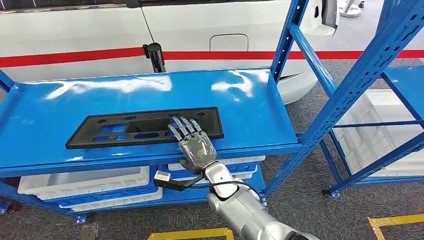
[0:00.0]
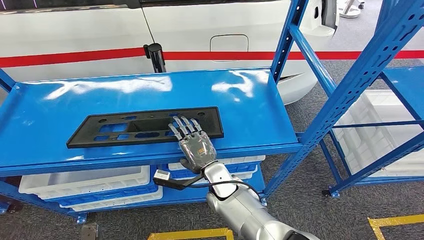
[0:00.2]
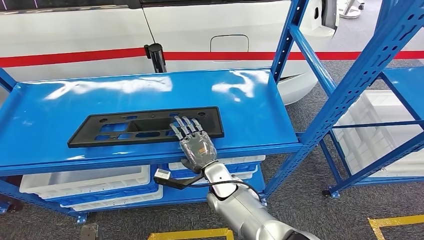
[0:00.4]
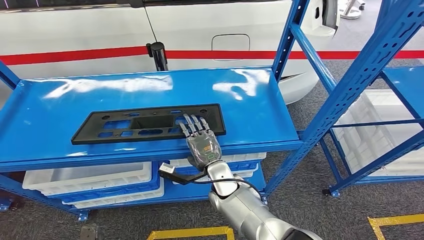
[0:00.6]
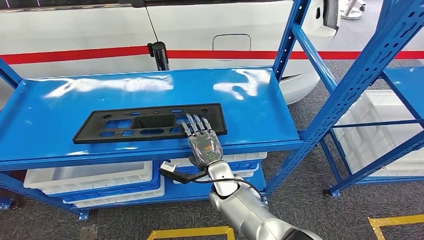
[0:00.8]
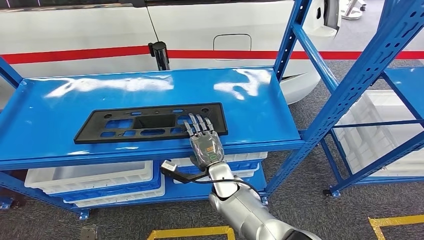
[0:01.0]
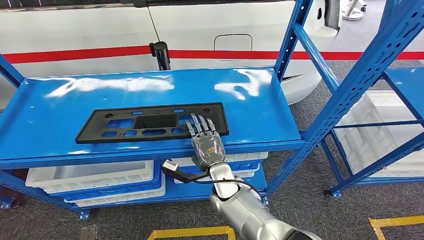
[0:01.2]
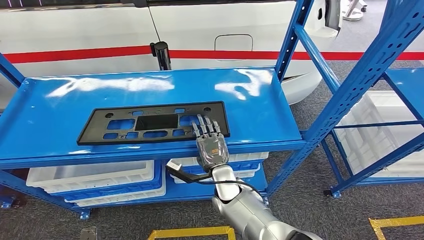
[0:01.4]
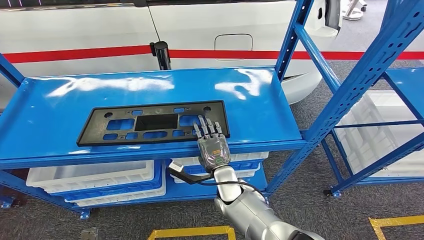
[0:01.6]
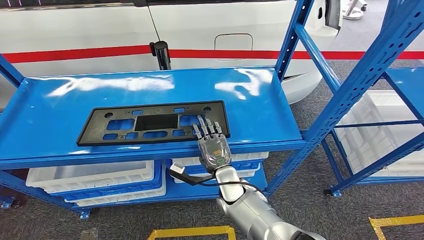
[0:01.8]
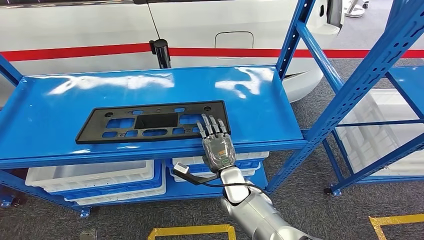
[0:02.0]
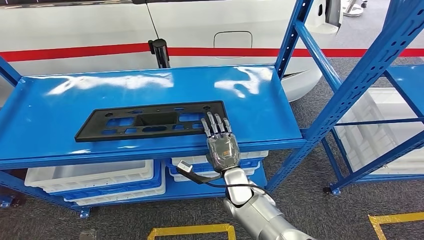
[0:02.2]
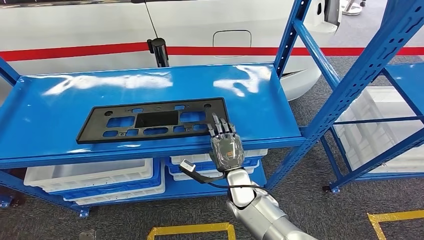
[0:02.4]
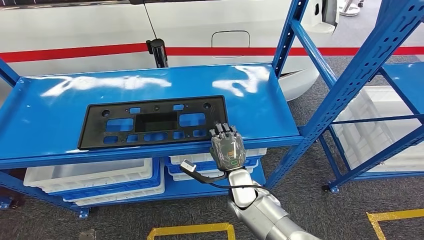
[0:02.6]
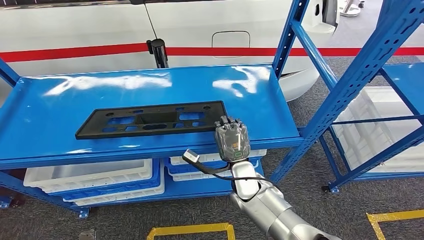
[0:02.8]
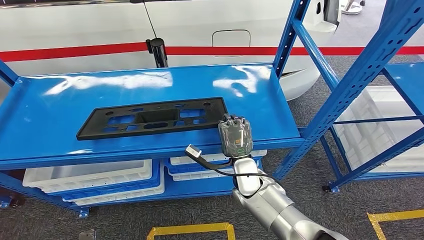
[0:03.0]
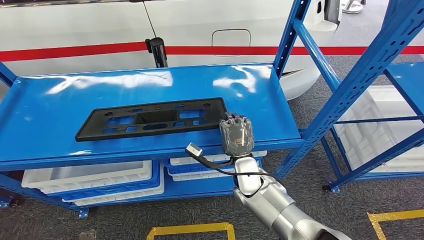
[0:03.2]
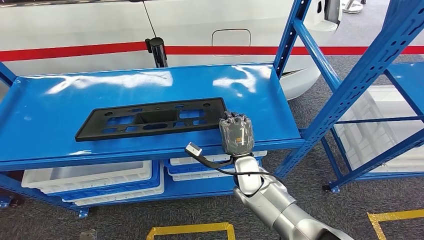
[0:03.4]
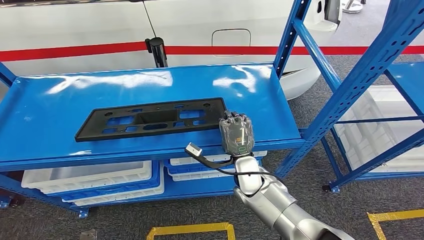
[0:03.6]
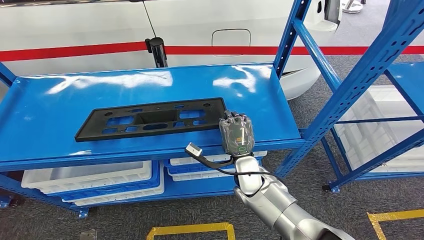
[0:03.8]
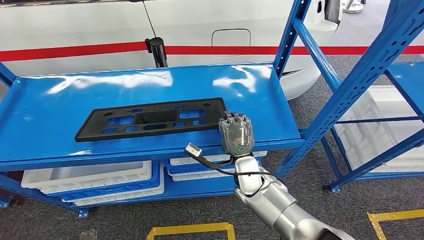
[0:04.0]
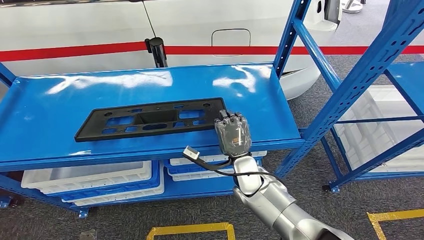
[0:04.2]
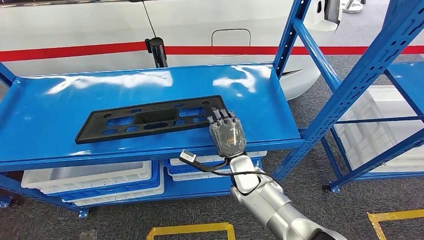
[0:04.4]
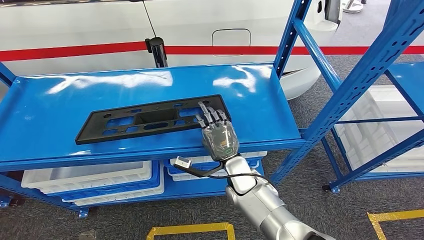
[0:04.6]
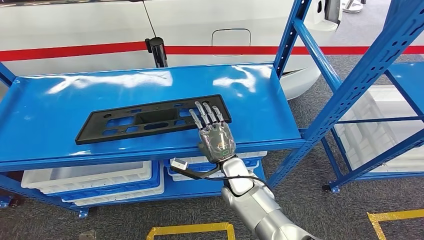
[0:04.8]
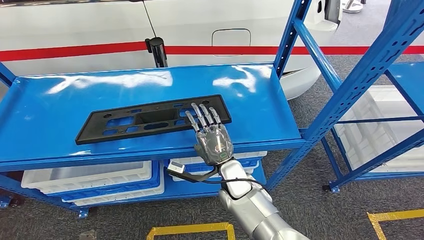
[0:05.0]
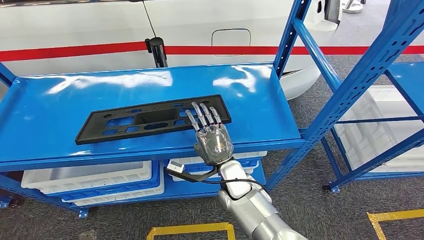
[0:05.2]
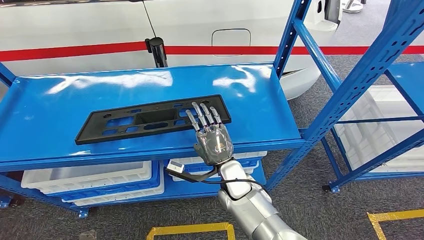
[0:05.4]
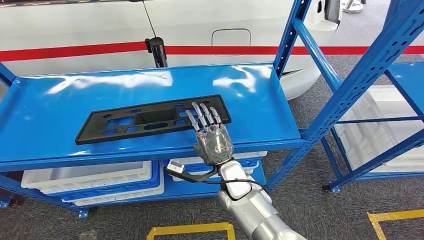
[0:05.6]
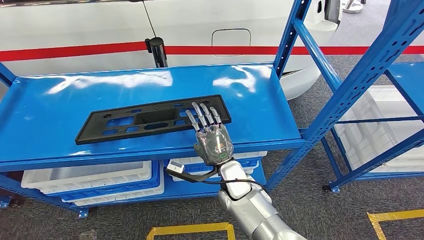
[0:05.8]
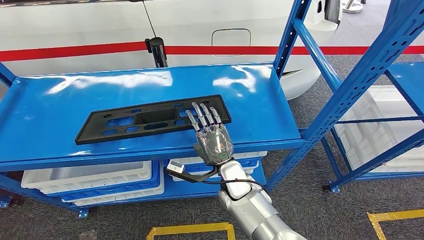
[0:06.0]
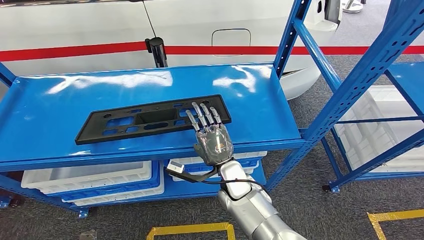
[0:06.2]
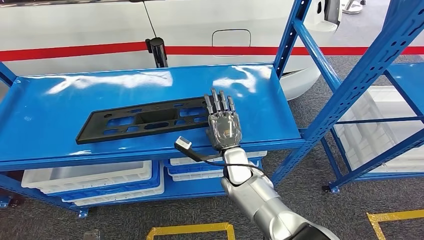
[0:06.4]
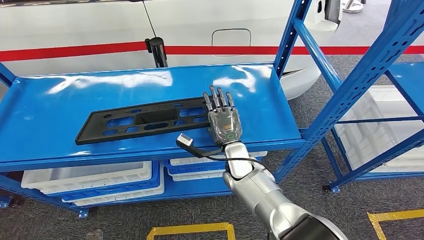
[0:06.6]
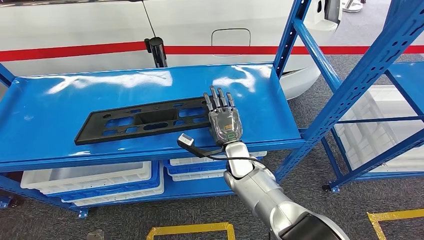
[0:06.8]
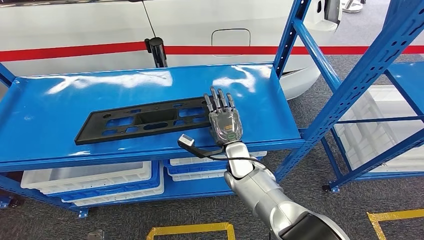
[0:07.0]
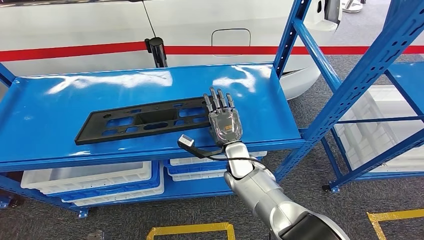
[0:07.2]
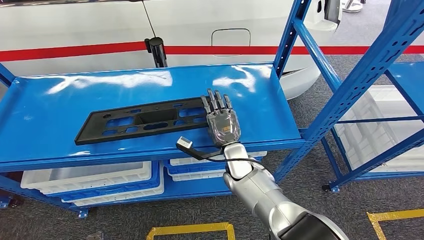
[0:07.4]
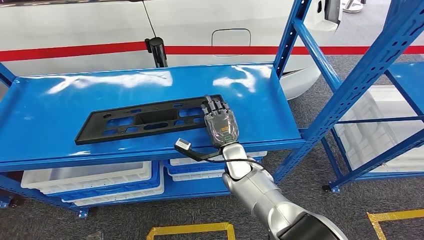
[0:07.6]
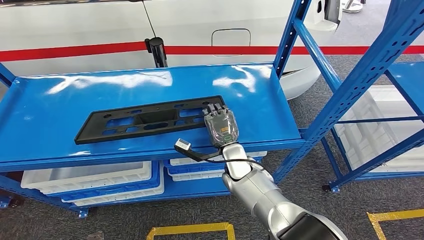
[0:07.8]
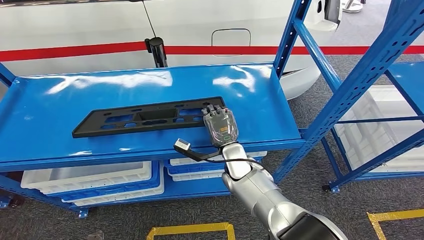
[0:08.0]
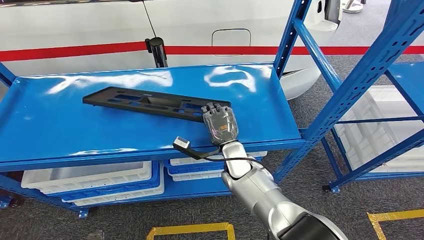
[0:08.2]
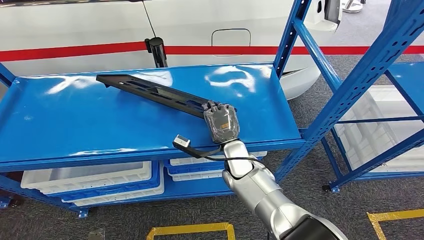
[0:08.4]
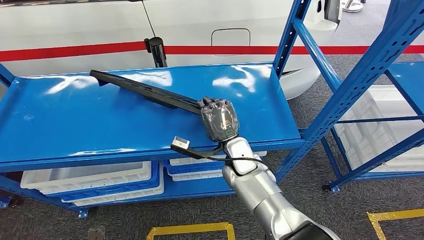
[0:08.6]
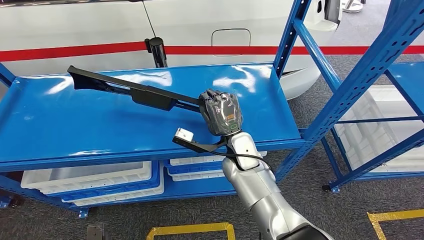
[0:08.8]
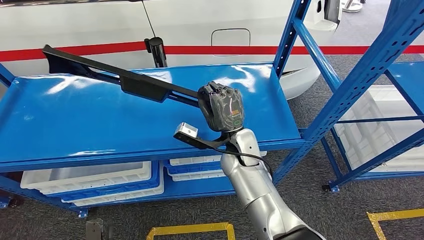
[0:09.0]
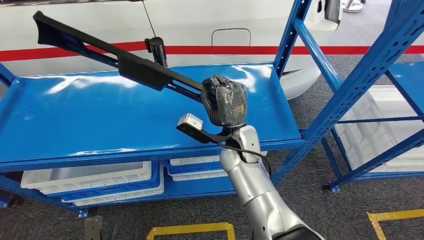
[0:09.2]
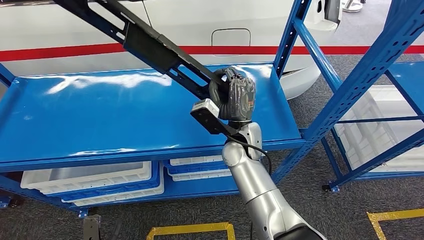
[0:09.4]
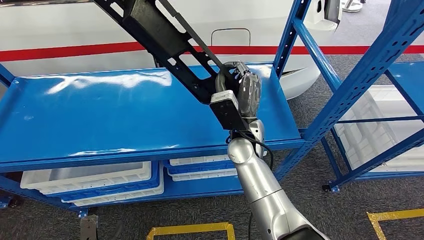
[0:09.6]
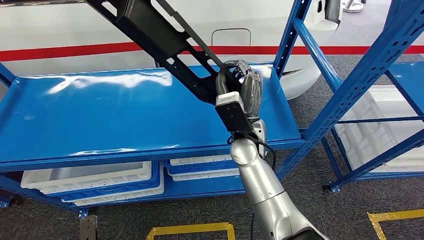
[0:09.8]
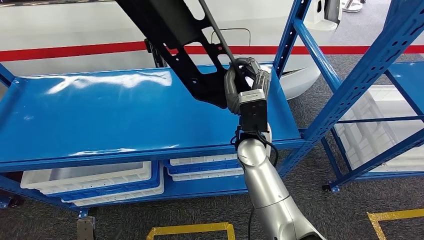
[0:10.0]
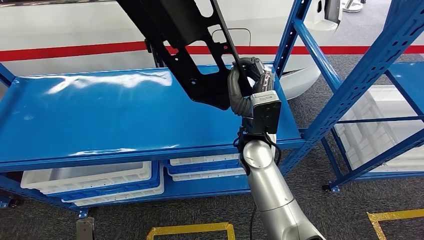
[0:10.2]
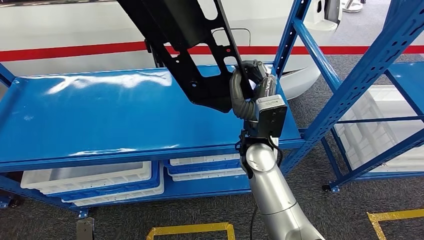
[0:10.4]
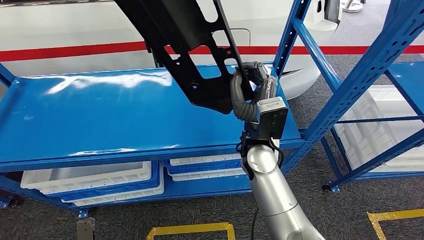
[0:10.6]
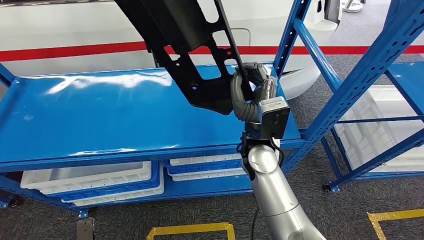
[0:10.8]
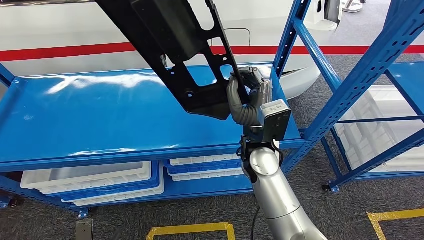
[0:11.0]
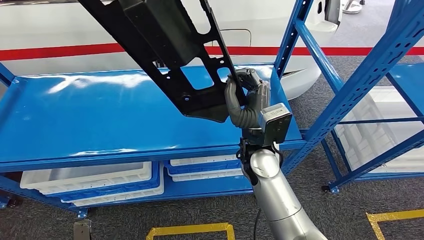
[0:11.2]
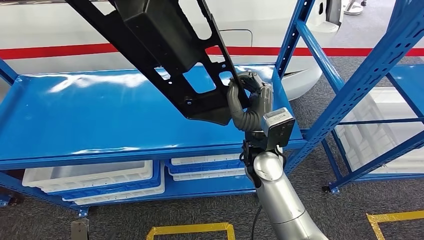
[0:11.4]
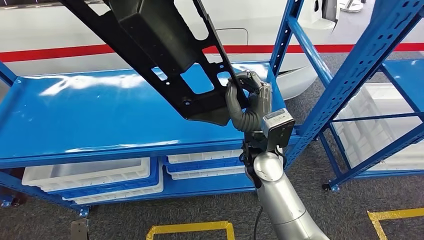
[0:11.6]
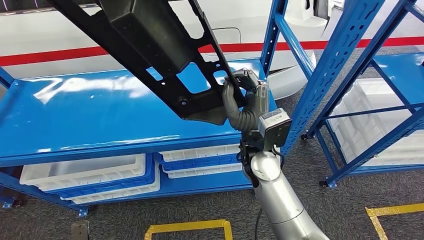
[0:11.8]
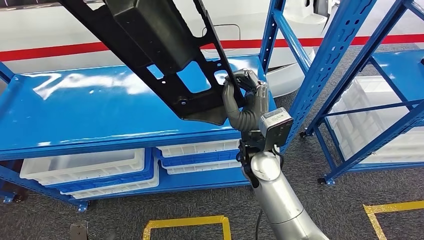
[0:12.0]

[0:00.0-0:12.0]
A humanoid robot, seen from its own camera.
0:03.0 to 0:07.6: The hands move only a little.
0:07.6 to 0:09.0: The right hand moves upward, about 5 cm.
0:09.0 to 0:10.4: The right hand goes approximately 5 cm upward.

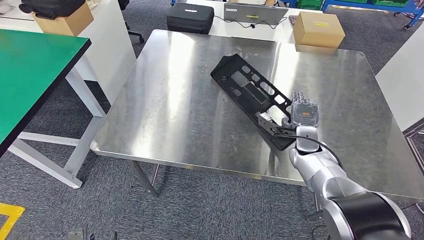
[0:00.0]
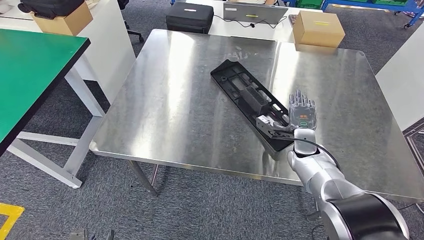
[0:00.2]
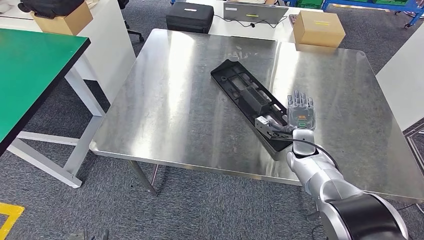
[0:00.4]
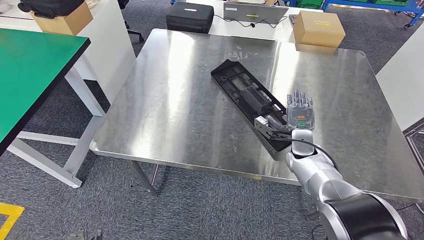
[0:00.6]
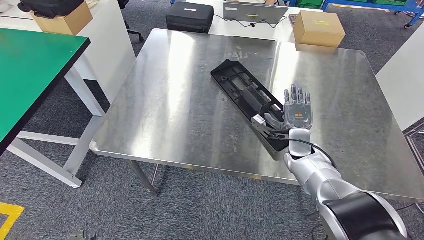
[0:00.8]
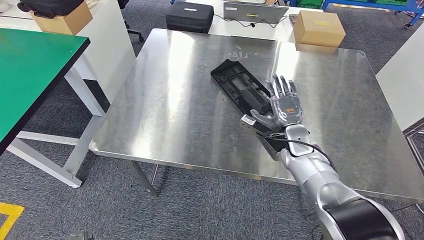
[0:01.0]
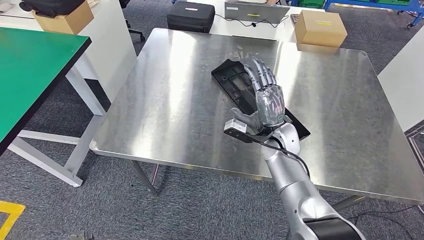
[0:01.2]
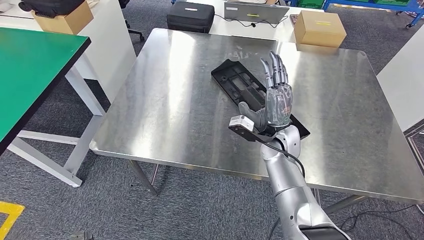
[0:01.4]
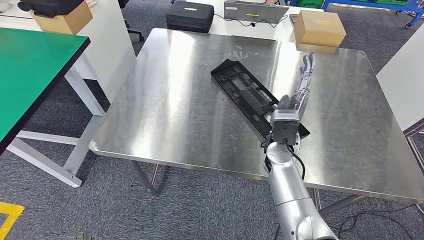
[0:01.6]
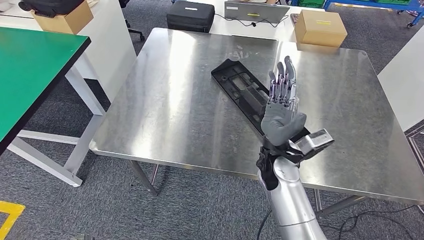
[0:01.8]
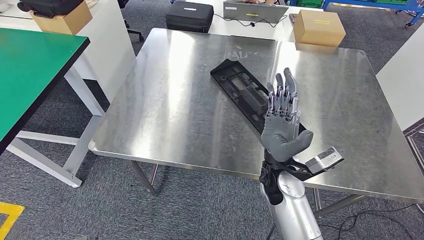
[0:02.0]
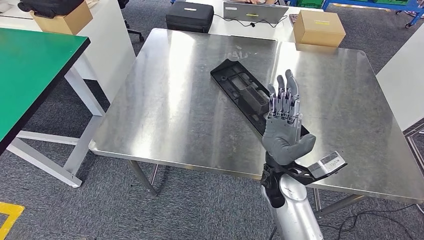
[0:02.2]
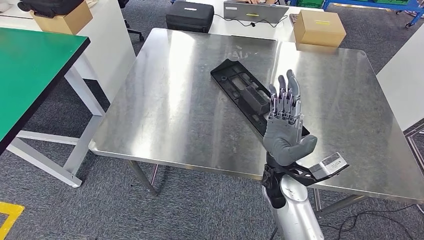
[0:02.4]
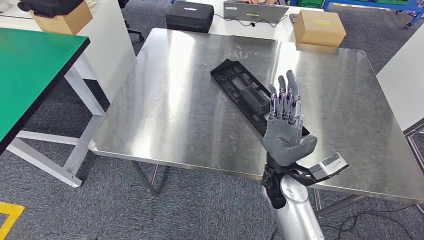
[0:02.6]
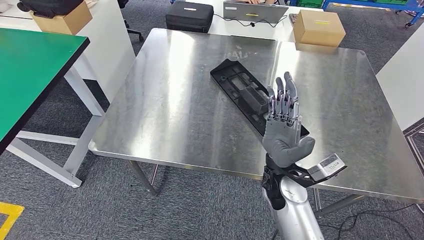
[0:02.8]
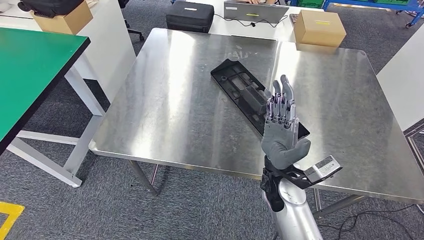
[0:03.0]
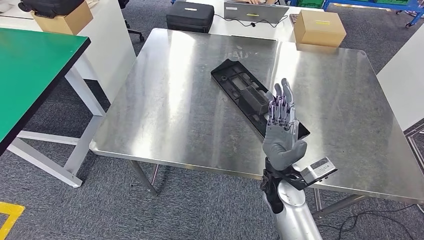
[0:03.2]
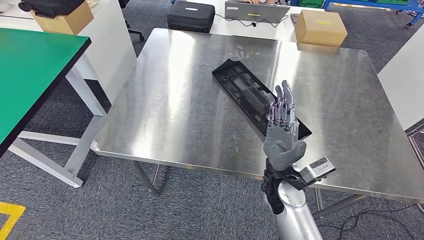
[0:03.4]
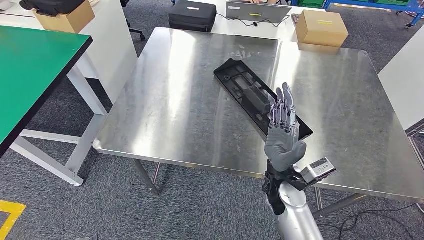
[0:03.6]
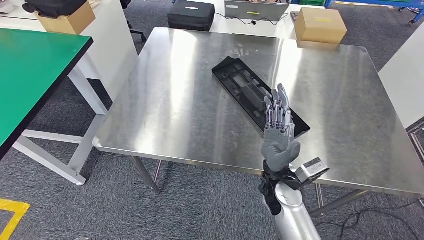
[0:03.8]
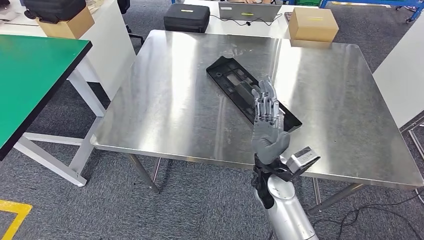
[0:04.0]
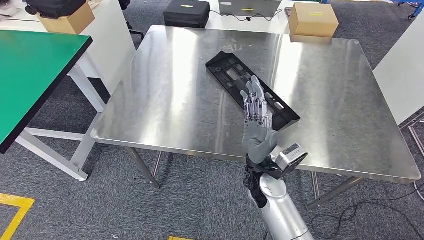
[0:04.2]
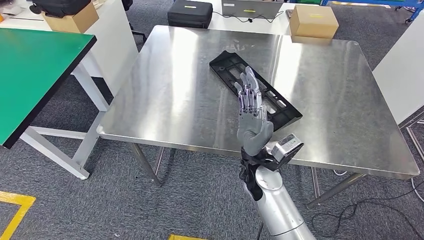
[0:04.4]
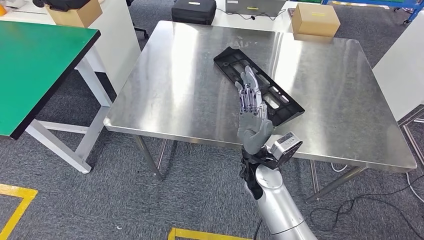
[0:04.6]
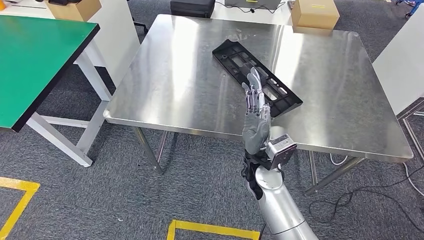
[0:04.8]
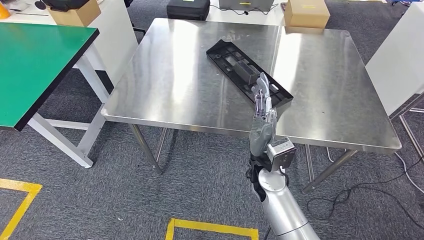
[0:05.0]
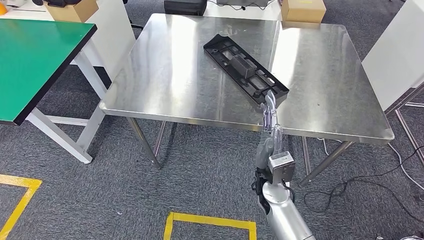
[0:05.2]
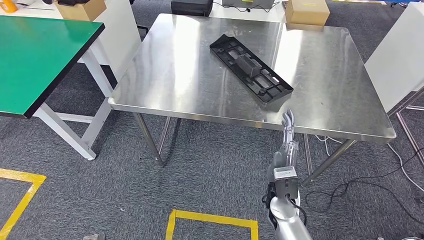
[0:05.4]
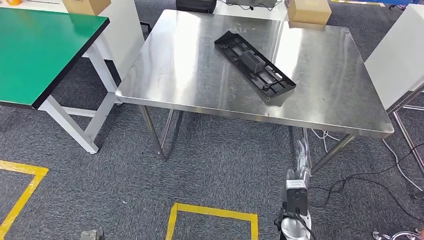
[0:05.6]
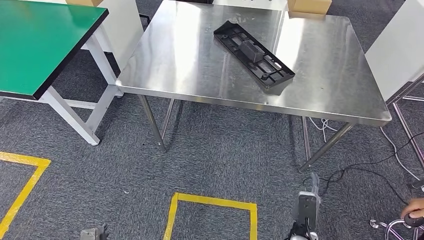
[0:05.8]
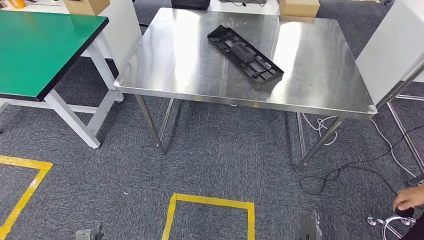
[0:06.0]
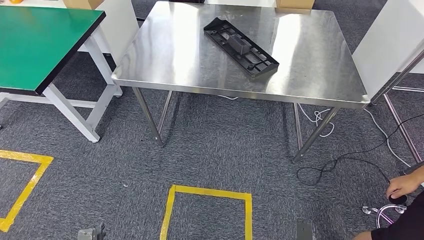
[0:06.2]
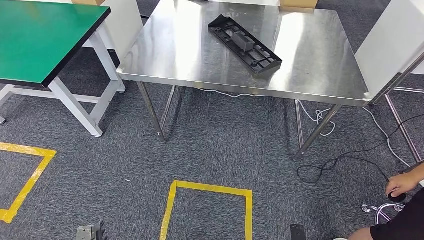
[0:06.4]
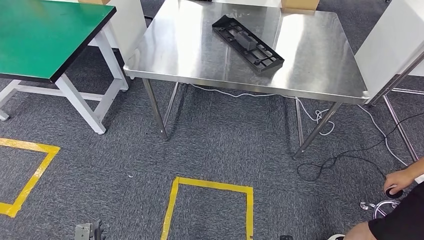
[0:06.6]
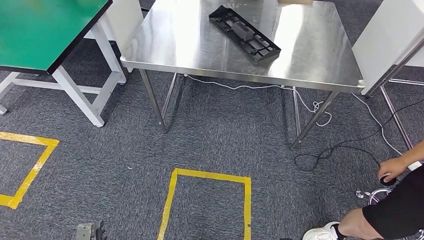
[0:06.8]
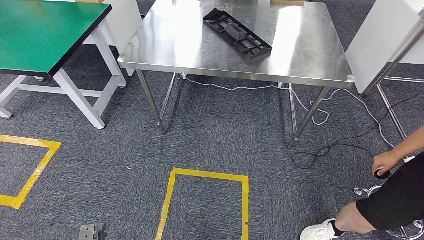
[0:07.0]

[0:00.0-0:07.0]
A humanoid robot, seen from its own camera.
Step, 0:00.0 to 0:02.6: Insert the large material into the corresponding slot on the workbench.
0:00.0 to 0:01.4: The right hand travels to the left and upward by roughly 10 cm.
0:01.4 to 0:02.8: The right hand moves backward, about 10 cm.
